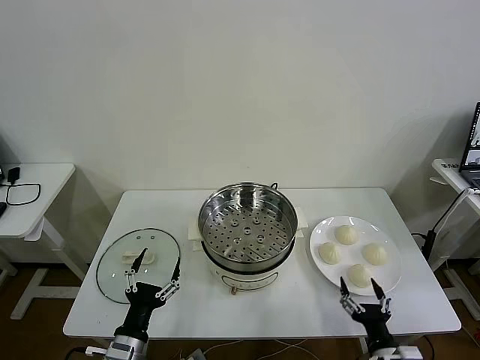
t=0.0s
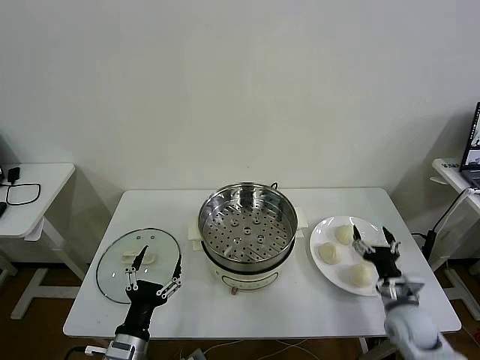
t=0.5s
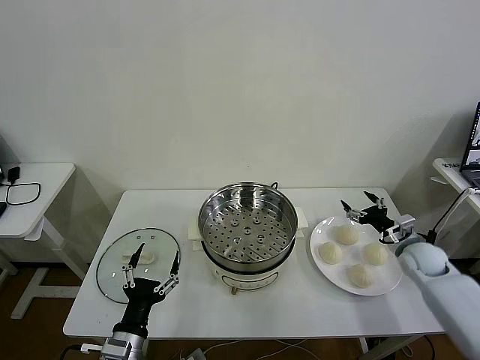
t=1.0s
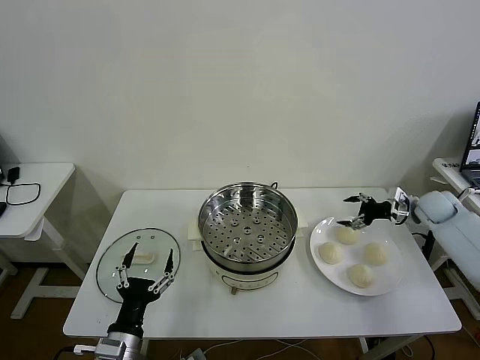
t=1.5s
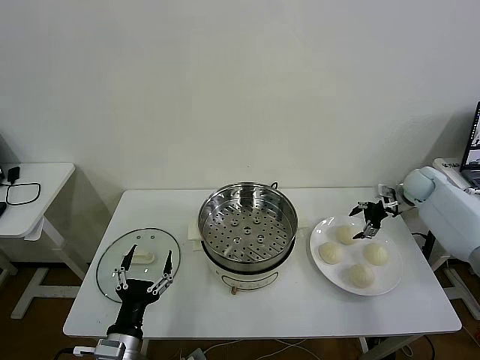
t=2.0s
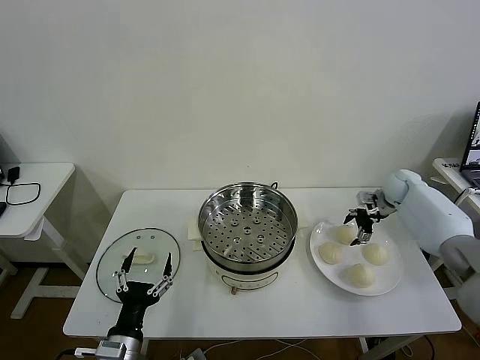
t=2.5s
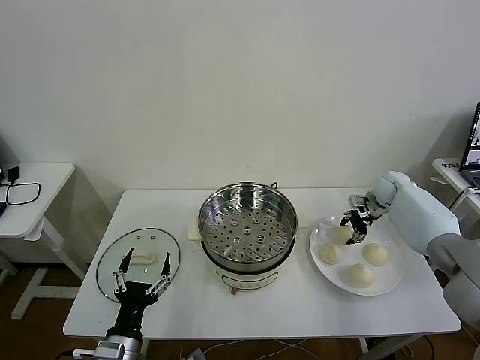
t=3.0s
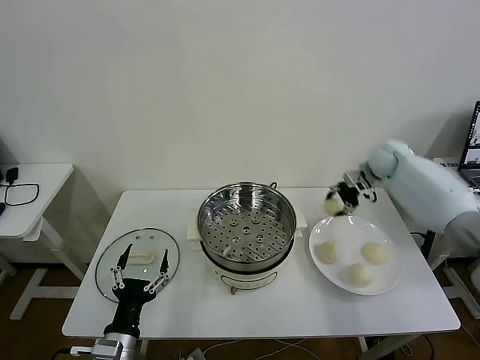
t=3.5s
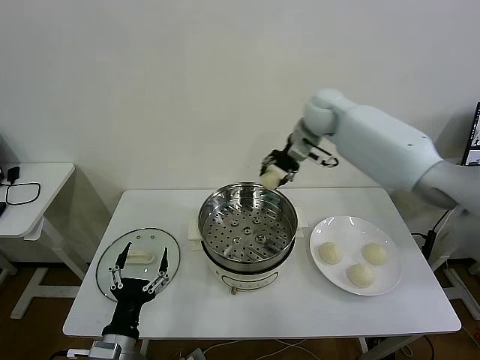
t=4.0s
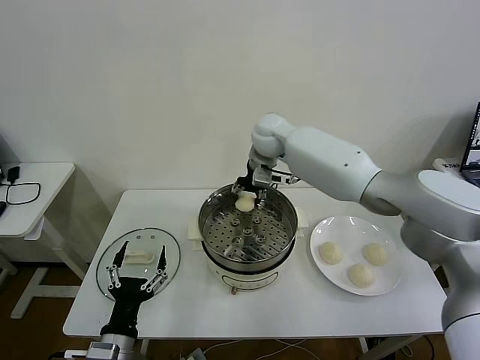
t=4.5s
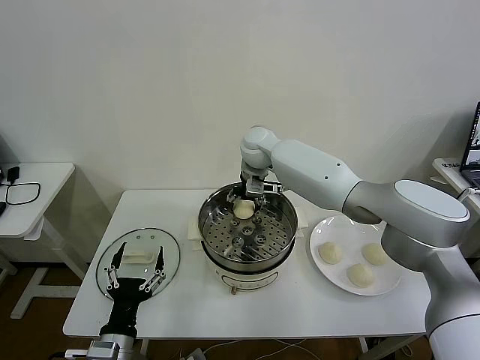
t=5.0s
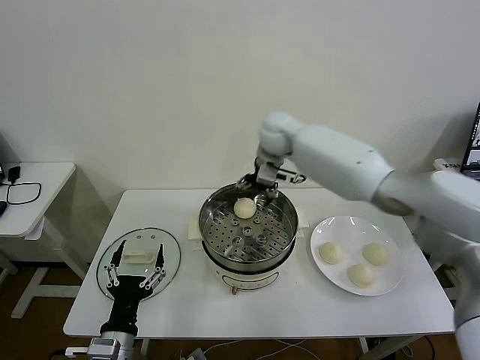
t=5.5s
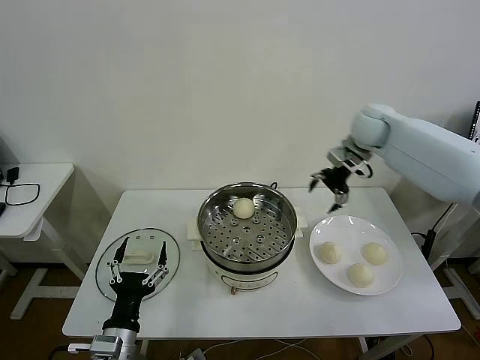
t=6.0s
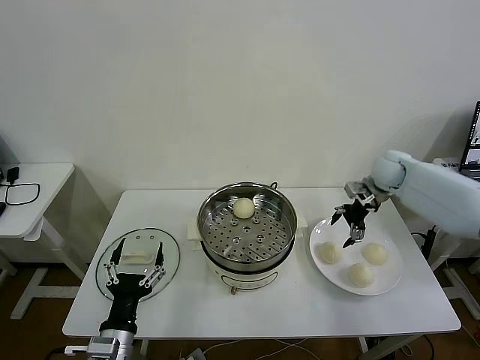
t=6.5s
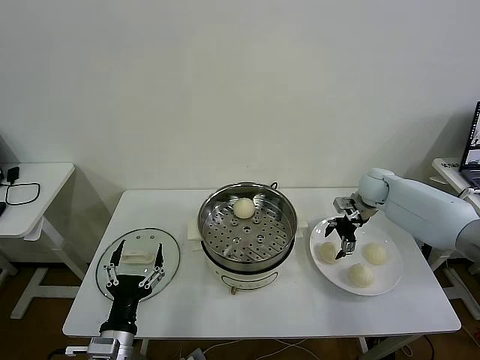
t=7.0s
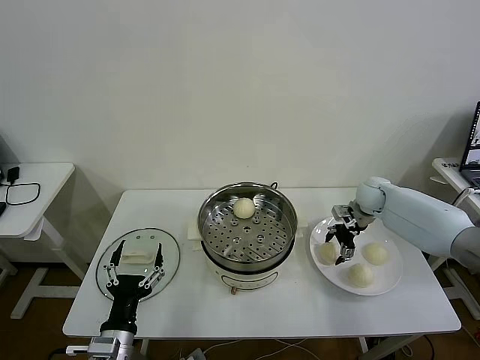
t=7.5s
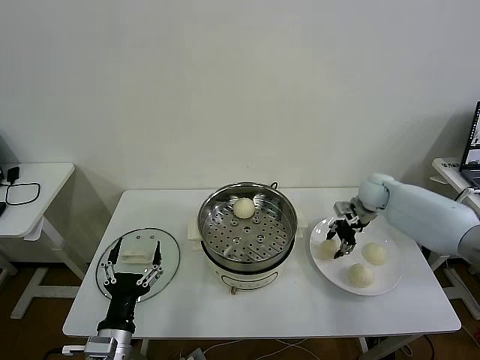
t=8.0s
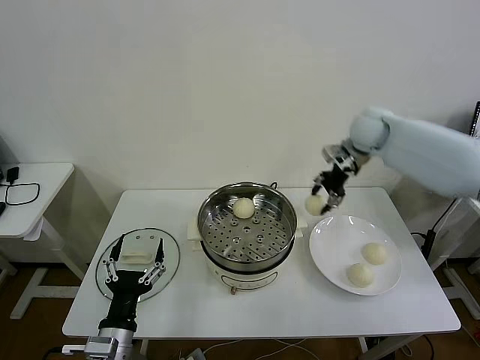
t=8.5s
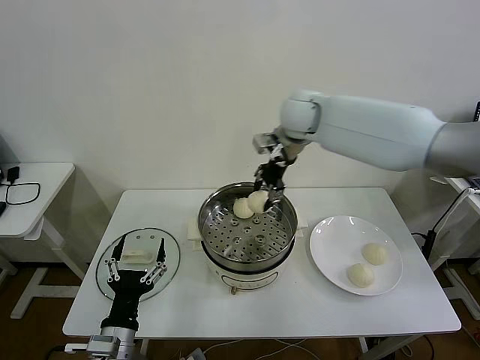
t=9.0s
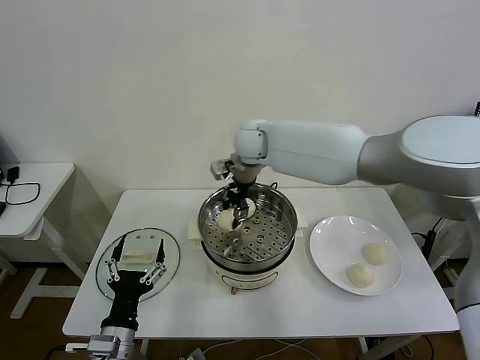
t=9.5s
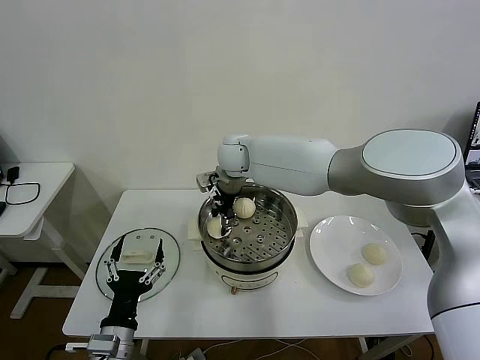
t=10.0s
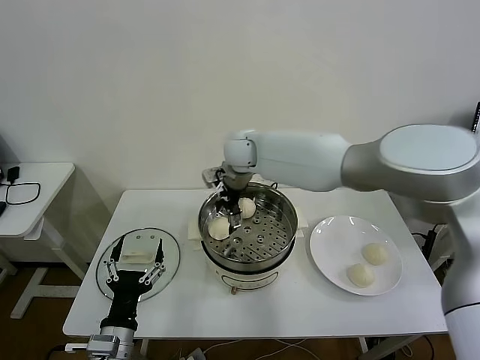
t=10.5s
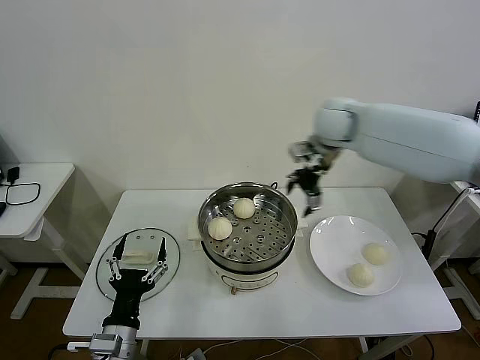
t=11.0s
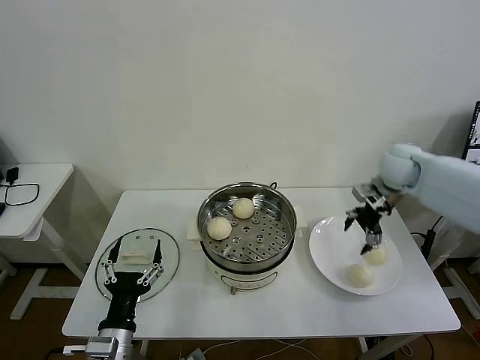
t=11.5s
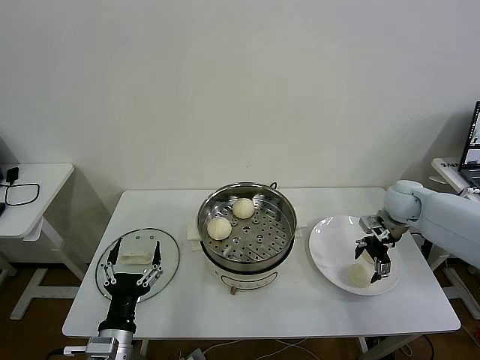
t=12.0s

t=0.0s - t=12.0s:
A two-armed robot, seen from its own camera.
Task of the whole recording: take steamed baozi put them in steamer then cover it.
Step, t=0.0s - t=3.0s: Grasp the baozi in the plate with right gripper.
Step, t=3.5s - t=5.5s: Place the baozi on the steamer with right gripper.
Step, t=6.0s - t=7.5s: Grasp the baozi in the plate with right gripper.
Step, t=8.0s - t=10.5s: Place the baozi on the steamer with right gripper.
t=2.0s - t=4.0s: The right gripper shifts some 40 cm to the left and upward, and closes up.
t=4.0s - t=6.0s: The right gripper is displaced to the right by roughly 20 cm, and opens.
t=6.0s - t=8.0s: The right gripper moves downward, roughly 15 cm, and closes up.
t=8.0s - t=10.0s: The right gripper travels to the left by roughly 35 cm.
t=10.0s - t=12.0s: The right gripper travels to the right by roughly 40 cm, and opens.

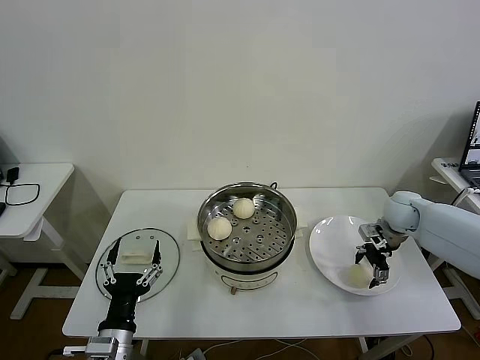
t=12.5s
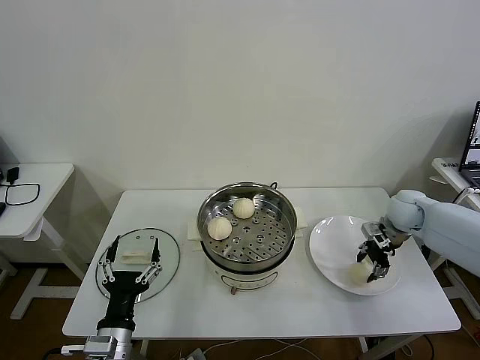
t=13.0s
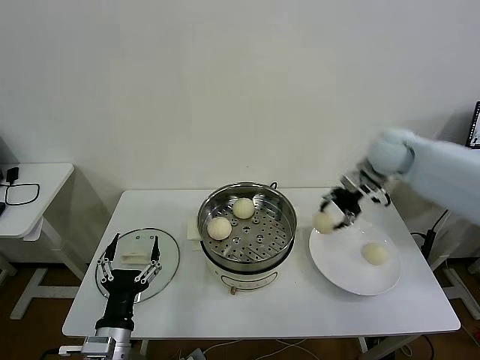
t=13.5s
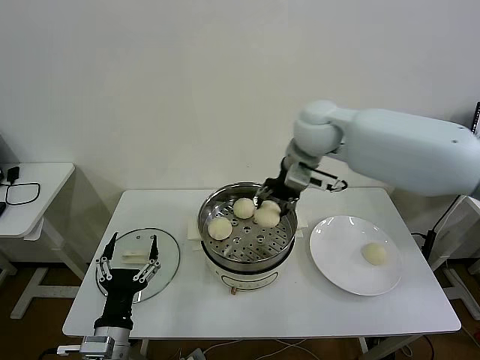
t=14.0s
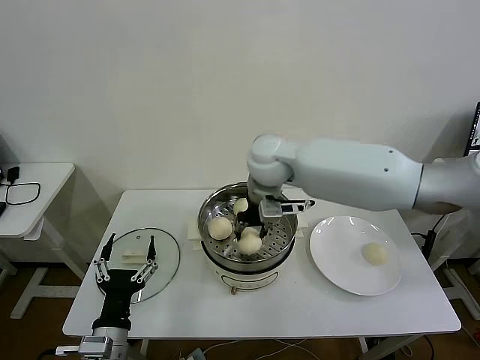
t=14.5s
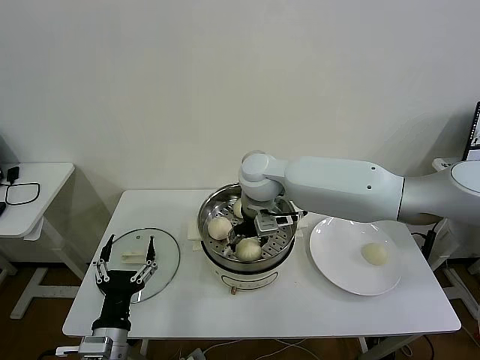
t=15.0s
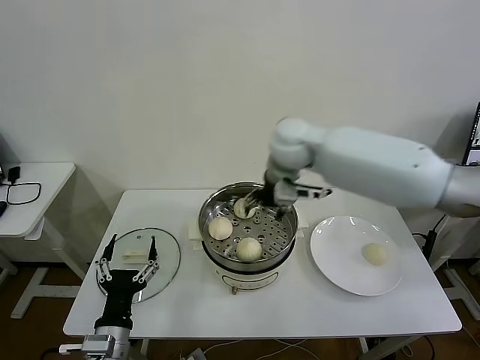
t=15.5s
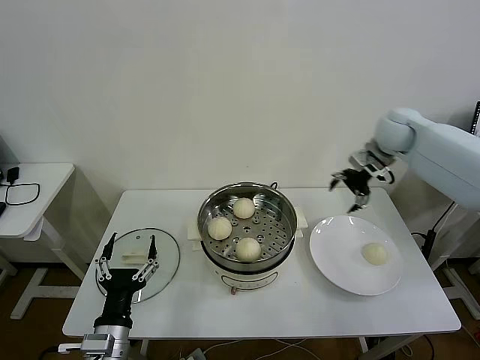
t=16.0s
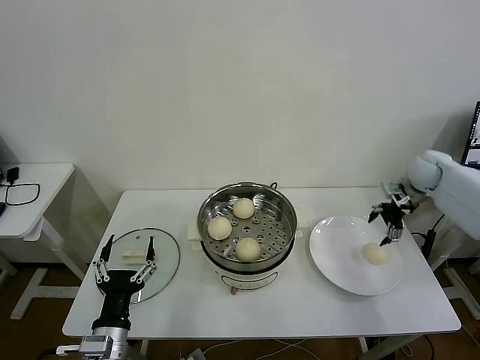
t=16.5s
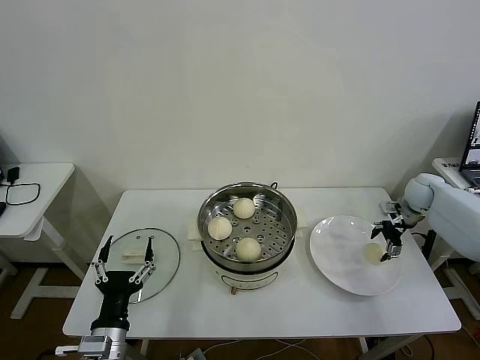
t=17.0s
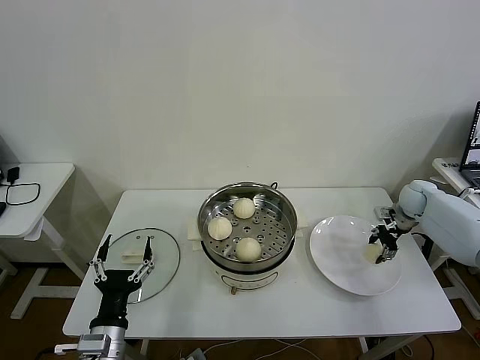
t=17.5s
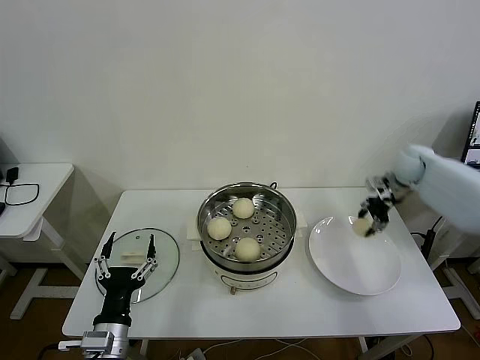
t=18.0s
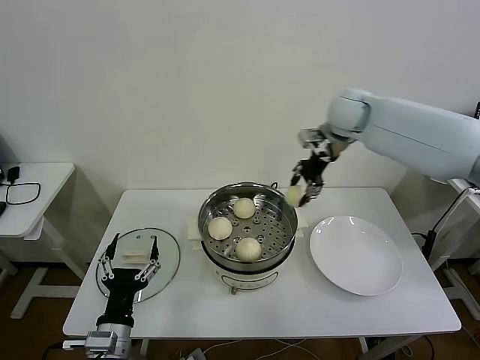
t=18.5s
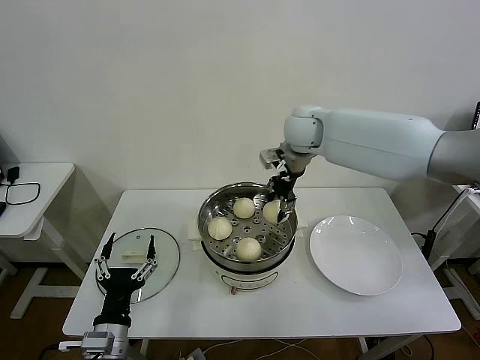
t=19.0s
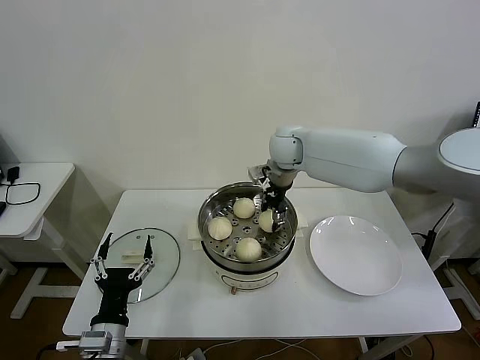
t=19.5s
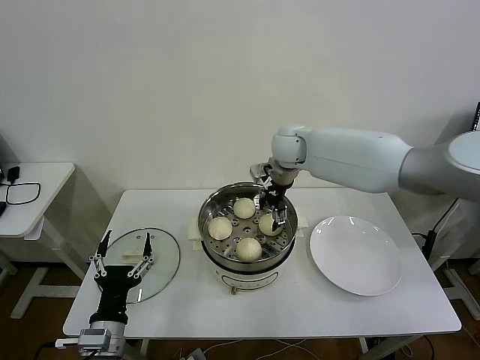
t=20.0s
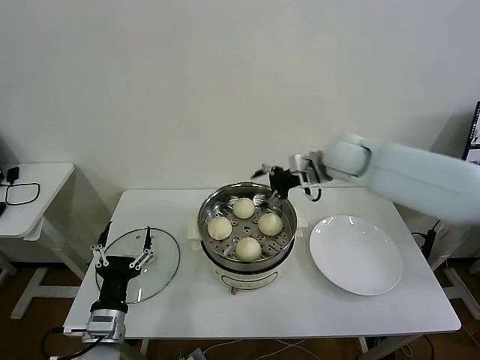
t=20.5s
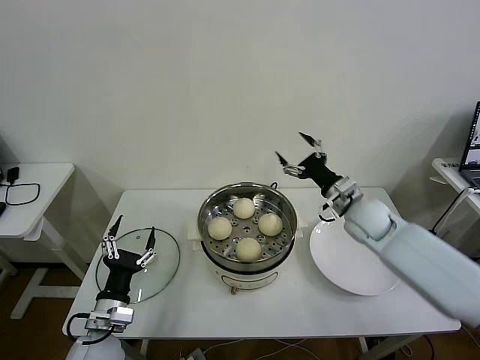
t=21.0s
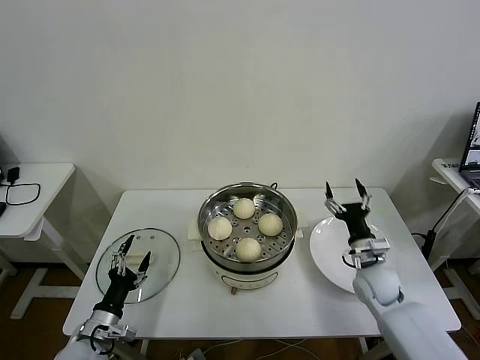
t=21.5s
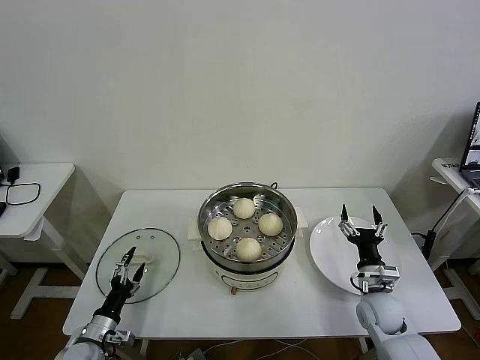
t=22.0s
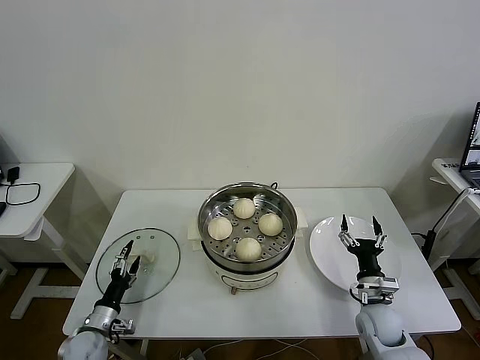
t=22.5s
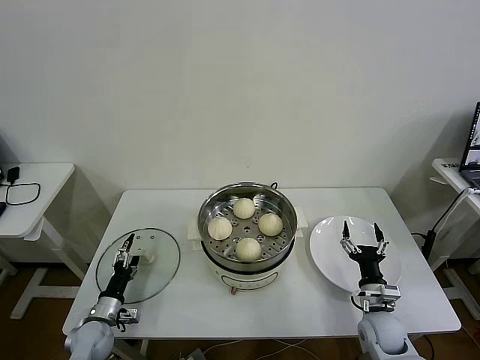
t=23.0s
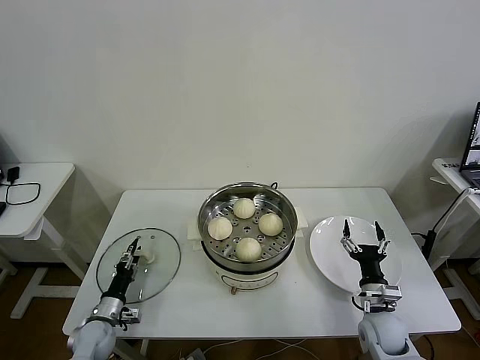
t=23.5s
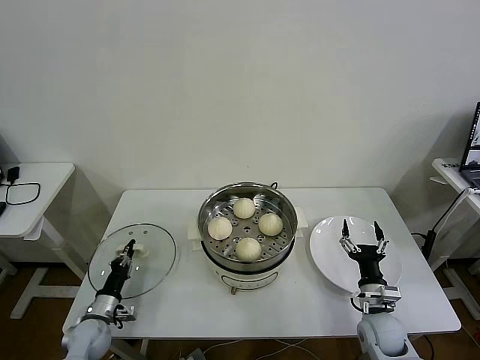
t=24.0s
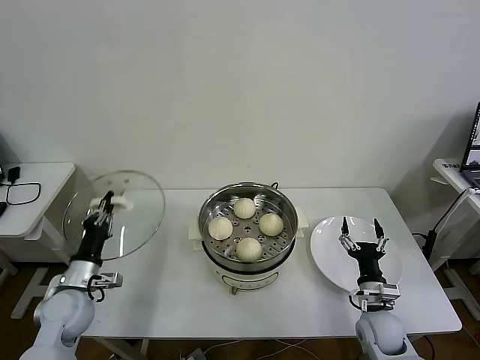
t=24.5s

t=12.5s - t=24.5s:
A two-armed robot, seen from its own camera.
Task of the whole recording: take steamed baozi put them in steamer then cover it.
Step, t=13.0s - t=15.5s: Place the baozi on the steamer with right gripper.
Step, t=16.0s - t=17.5s: Grasp the baozi in the plate with right gripper.
Step, t=18.0s - t=20.0s: Place the baozi on the steamer with right gripper.
Step, t=20.5s - t=23.5s: Grasp the pot lid with left gripper.
t=12.5s - t=14.5s: The right gripper travels to the left and upward by about 40 cm, and closes.
t=14.5s - t=16.5s: The right gripper shifts roughly 40 cm to the right, and opens.
t=16.5s - t=18.5s: The right gripper is displaced to the left and upward by roughly 30 cm, and closes.
t=18.5s - t=20.5s: The right gripper travels downward and backward by approximately 10 cm, travels to the left and back again, about 10 cm each way, and opens.
t=20.5s - t=22.5s: The left gripper is displaced downward, to the left and forward by some 20 cm, while the right gripper shifts roughly 40 cm downward and backward.
t=22.5s - t=24.5s: The left gripper is displaced upward by about 15 cm, and closes.

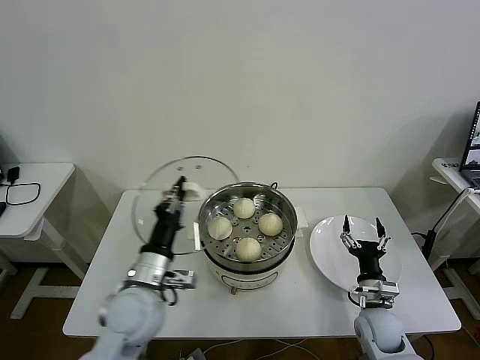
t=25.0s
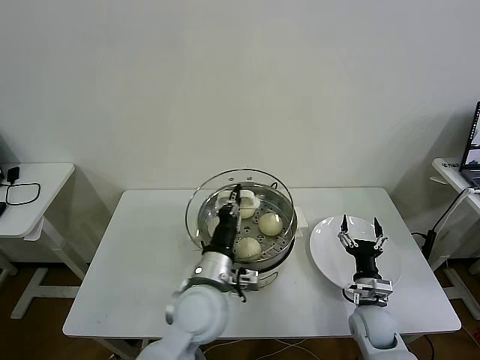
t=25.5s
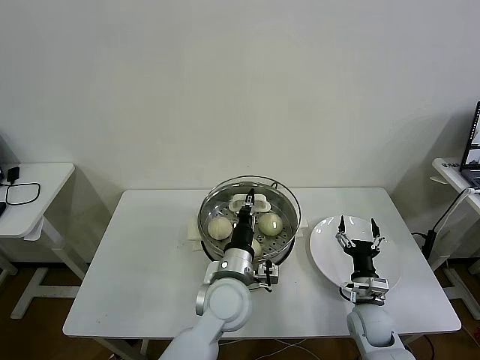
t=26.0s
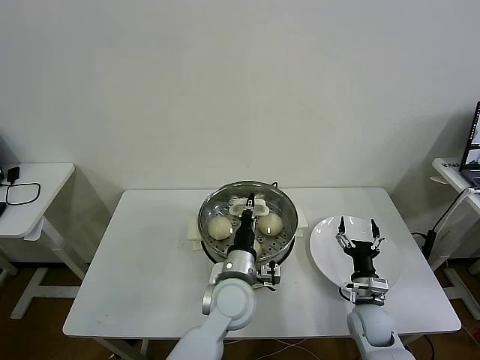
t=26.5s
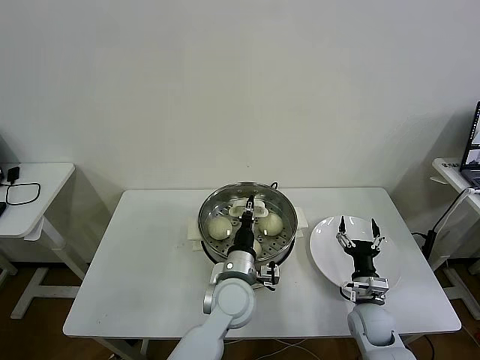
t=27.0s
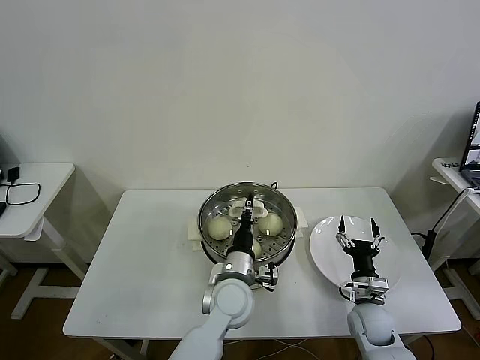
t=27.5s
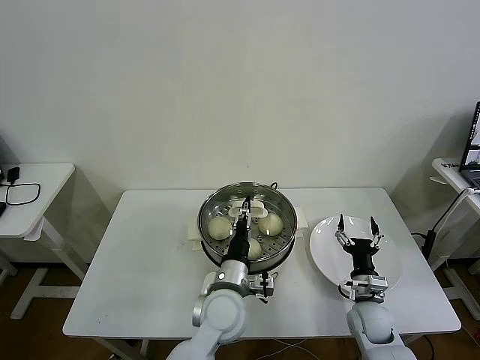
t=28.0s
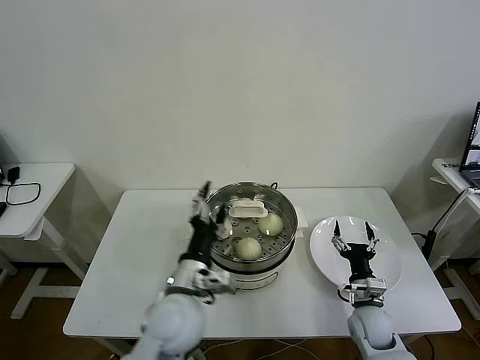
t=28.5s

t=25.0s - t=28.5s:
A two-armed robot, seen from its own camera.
Task of the whole recording: take steamed baozi put them in steamer then cover it.
Step, t=25.0s - t=27.5s: Place the pot lid on the steamer with left gripper.
t=25.0s - t=27.0s: The left gripper moves to the right, approximately 20 cm.
t=27.0s - t=28.5s: The left gripper goes approximately 10 cm to the left, backward and upward, and opens its fingers.
